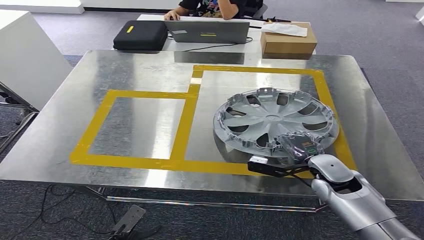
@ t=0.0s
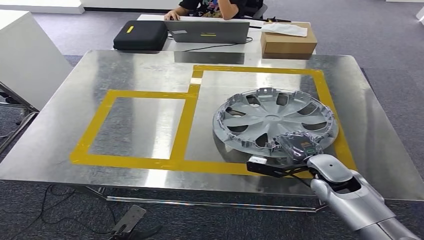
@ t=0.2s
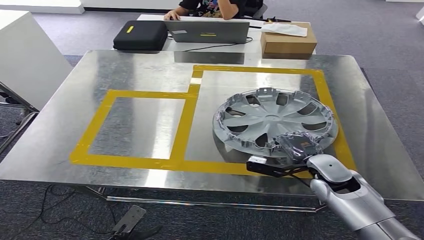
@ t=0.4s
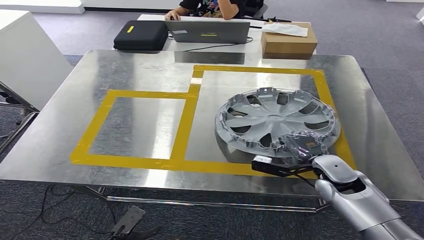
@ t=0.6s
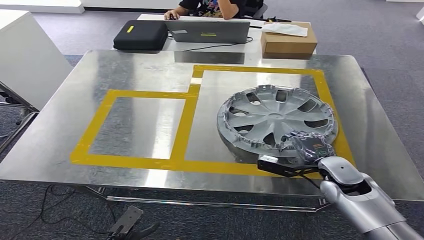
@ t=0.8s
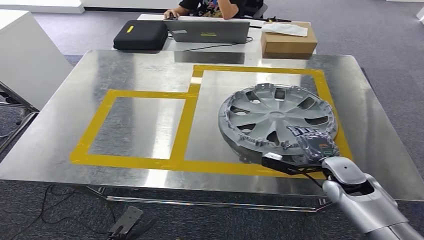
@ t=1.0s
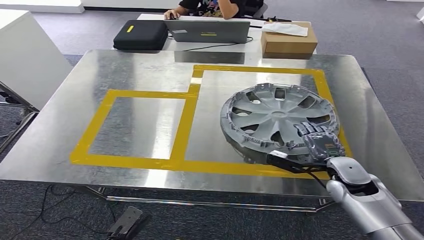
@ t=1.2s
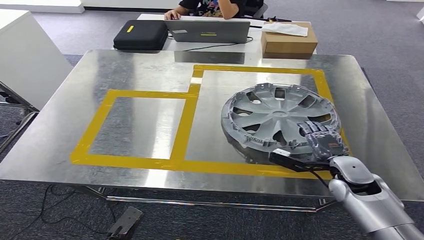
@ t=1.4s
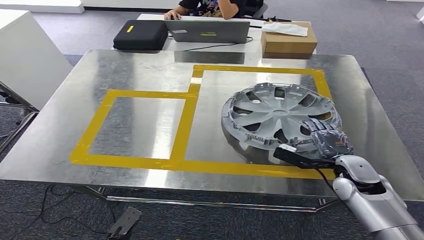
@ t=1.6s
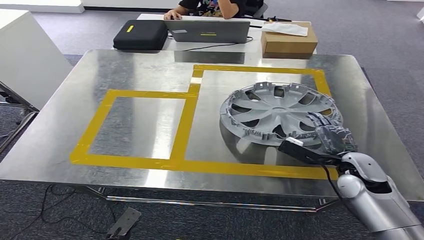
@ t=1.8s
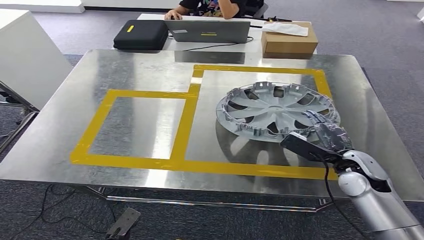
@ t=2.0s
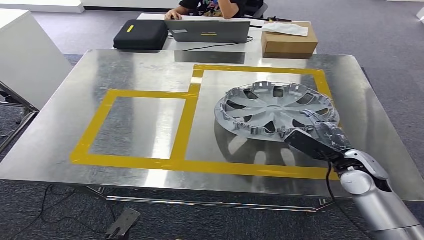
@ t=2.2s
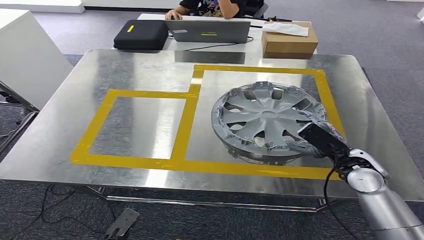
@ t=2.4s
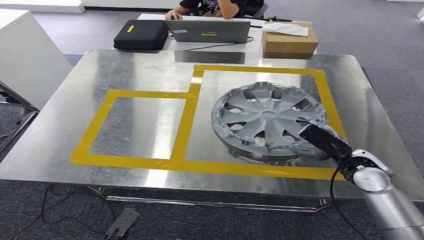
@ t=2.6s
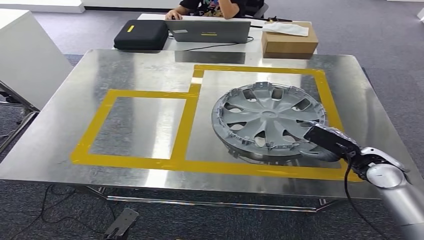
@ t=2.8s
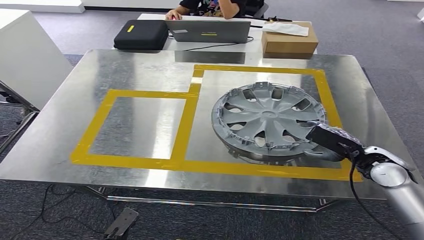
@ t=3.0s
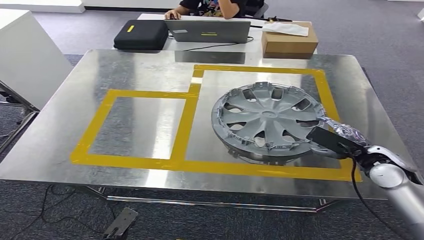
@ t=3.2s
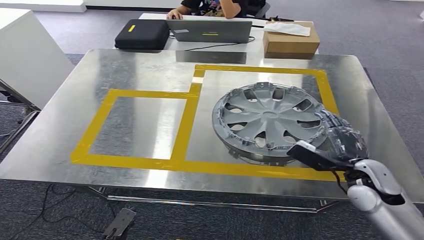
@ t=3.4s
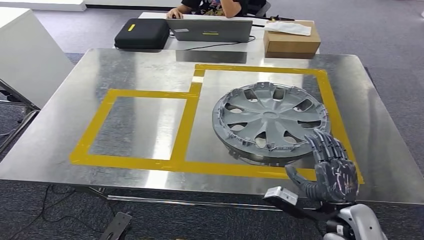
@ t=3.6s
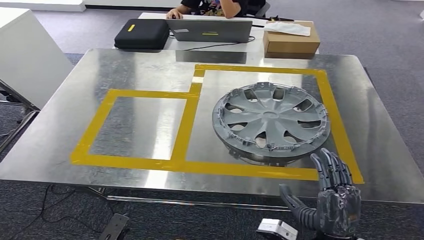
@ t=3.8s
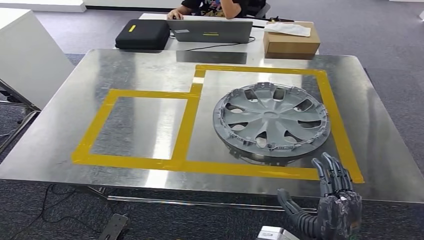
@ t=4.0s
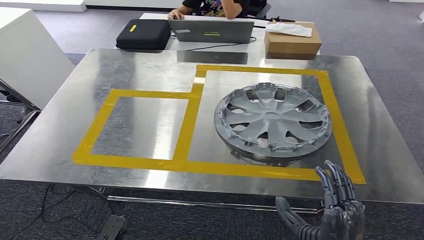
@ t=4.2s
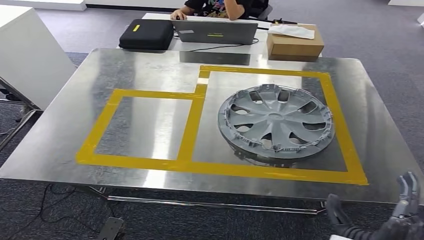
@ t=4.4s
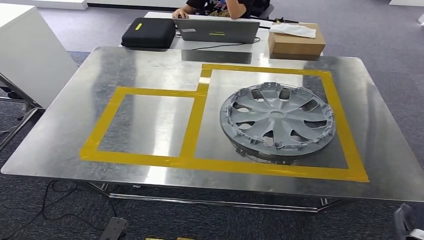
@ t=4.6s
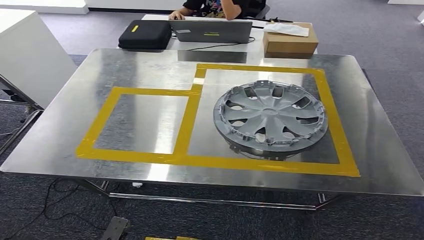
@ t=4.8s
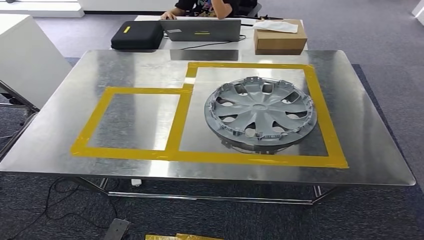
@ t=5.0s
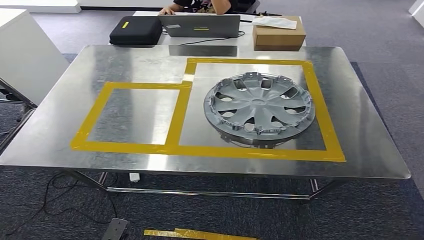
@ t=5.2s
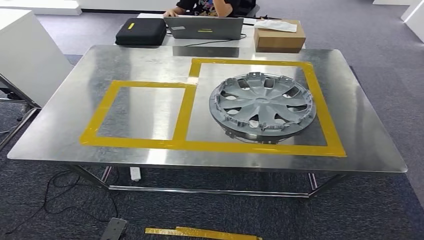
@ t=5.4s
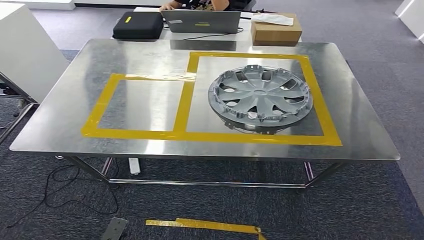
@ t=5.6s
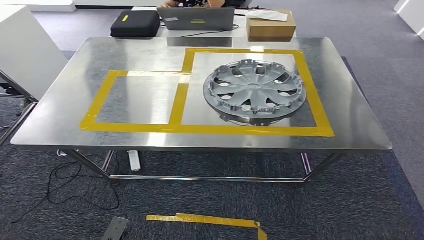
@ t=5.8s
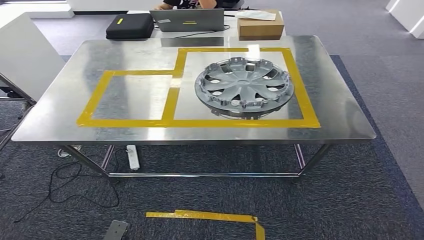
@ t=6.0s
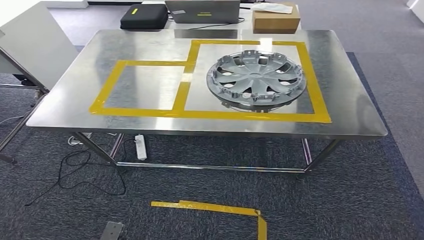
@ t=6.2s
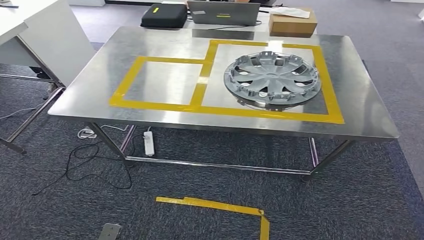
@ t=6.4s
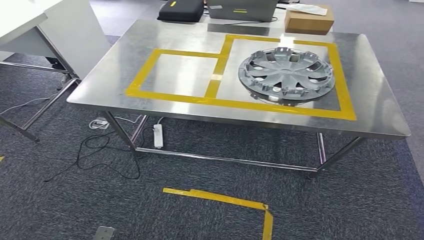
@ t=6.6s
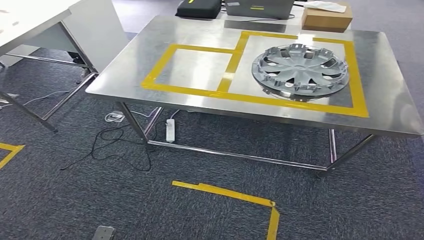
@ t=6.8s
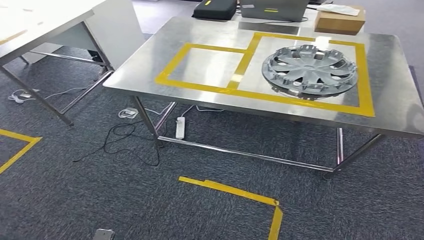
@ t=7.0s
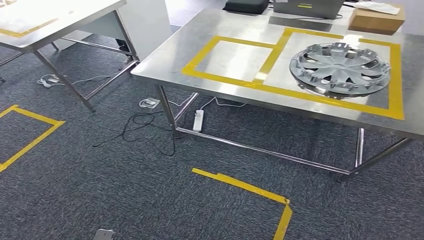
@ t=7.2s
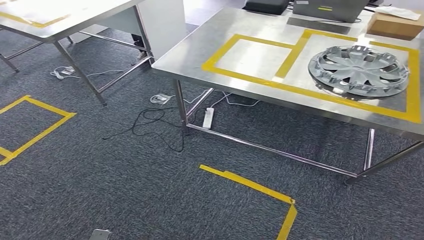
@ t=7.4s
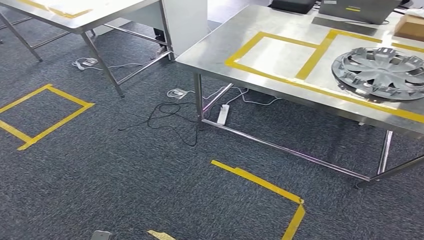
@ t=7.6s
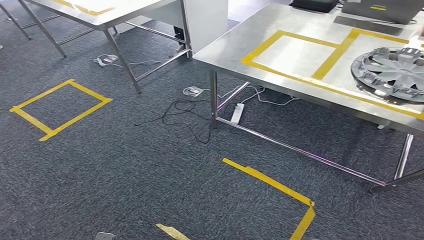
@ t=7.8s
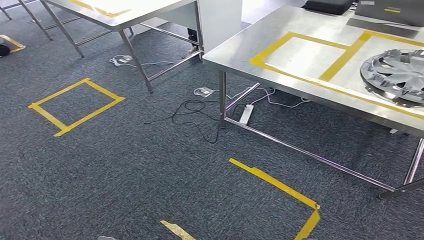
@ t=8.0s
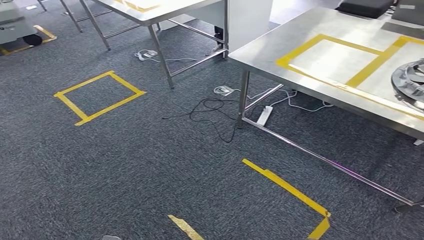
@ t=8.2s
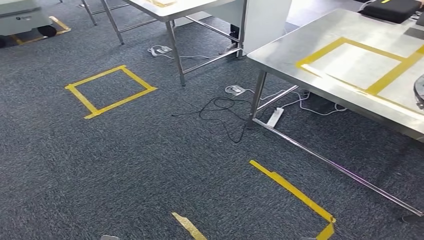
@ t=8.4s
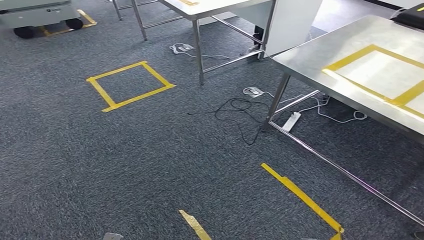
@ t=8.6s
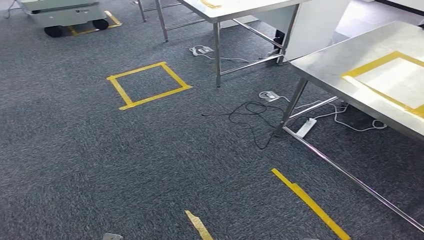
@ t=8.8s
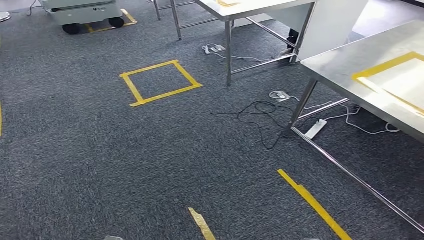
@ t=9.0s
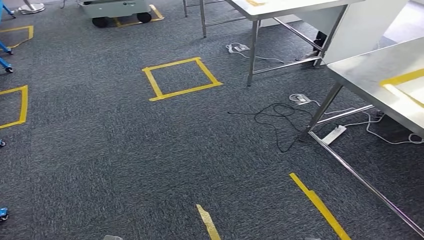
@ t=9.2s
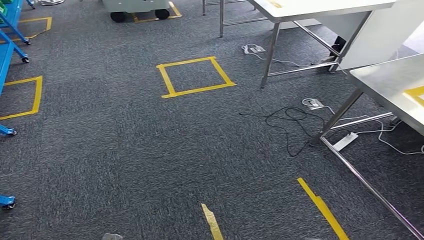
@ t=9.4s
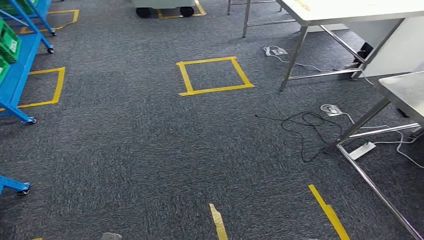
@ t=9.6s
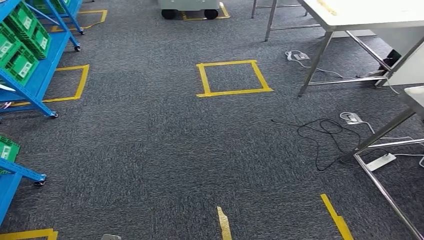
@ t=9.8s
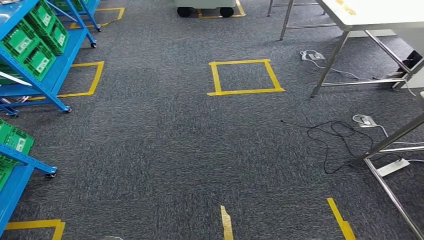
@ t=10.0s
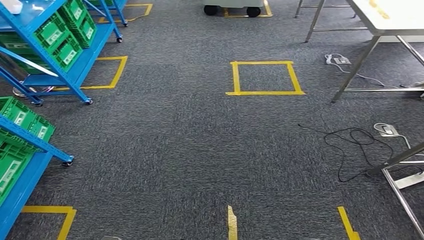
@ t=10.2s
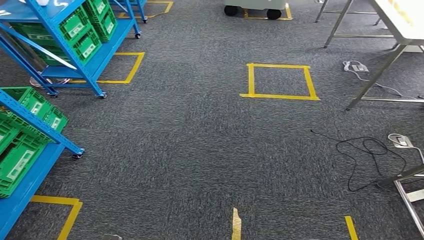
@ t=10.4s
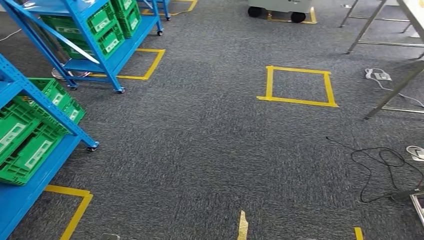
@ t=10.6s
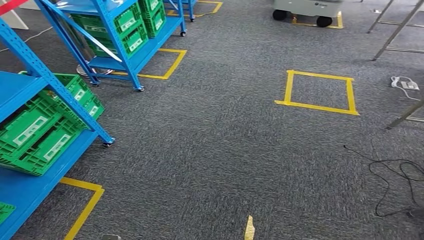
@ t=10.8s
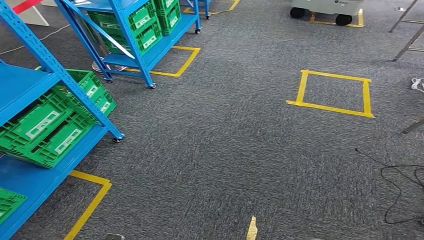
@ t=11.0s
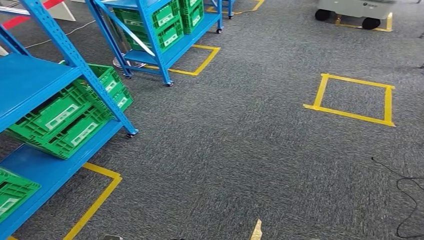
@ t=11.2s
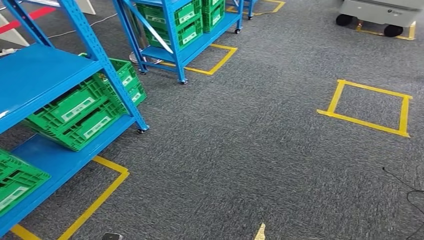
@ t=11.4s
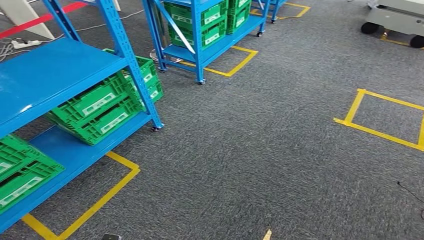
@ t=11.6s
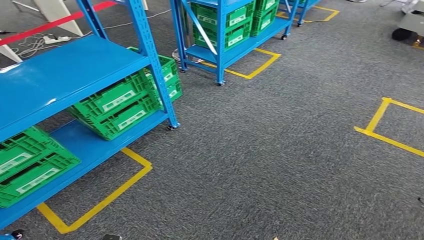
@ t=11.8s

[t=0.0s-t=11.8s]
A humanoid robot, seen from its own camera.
Step, t=0.0s to t=4.6s: Insert the small component into the corresponding slot on the workbench.
t=0.0s to t=1.4s: The hands make only small movements.
t=1.4s to t=3.0s: The right hand moves to the right, some 5 cm.
t=3.0s to t=4.4s: The right hand moves backward and to the left, approximately 30 cm.

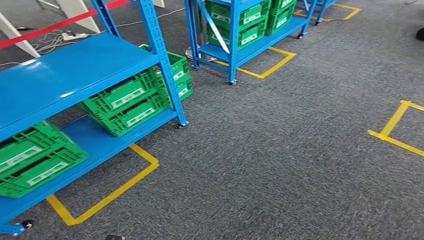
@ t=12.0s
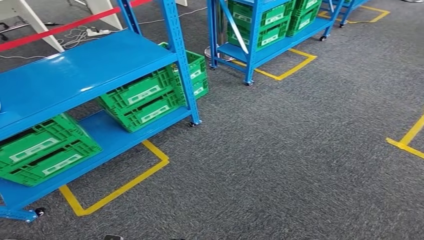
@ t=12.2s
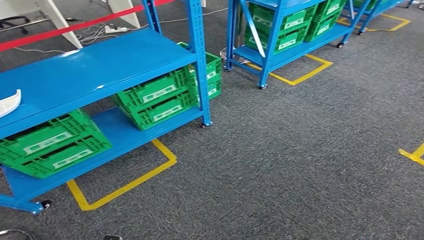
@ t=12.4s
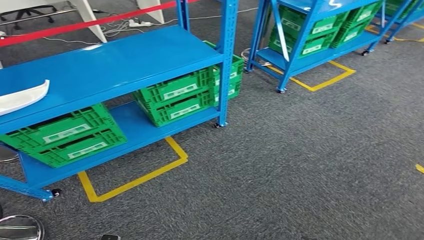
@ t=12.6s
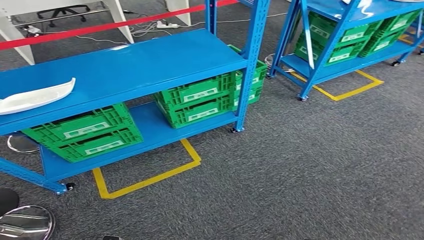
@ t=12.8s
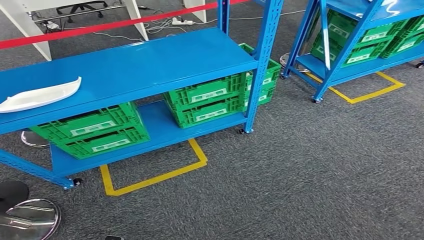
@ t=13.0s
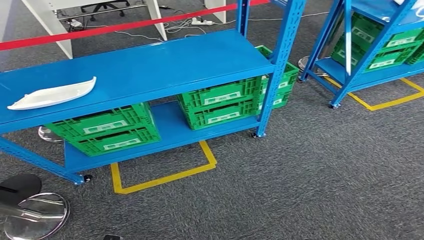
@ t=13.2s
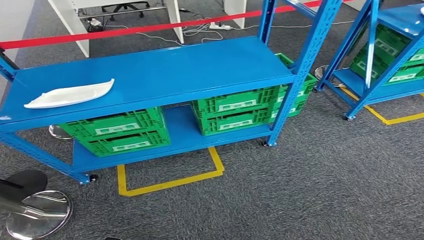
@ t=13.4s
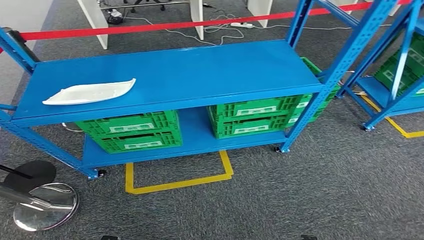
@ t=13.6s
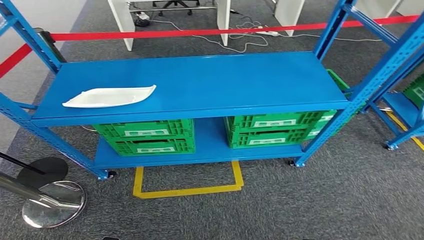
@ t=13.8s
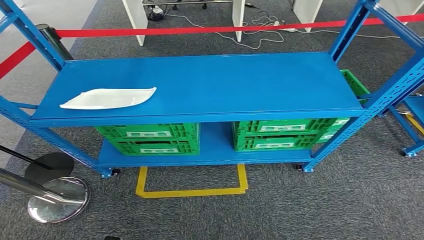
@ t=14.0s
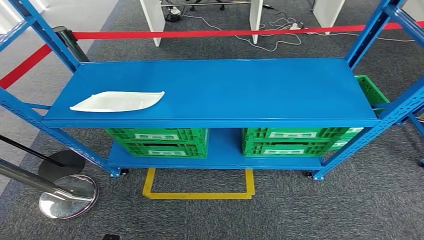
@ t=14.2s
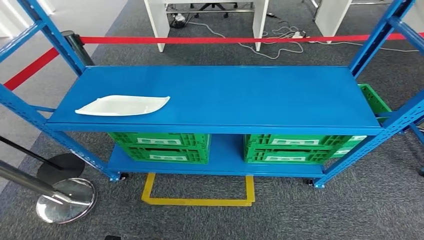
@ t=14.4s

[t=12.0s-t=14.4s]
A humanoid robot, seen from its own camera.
Step, t=12.0s to t=14.4s: Return to the initial position at the workbench.
